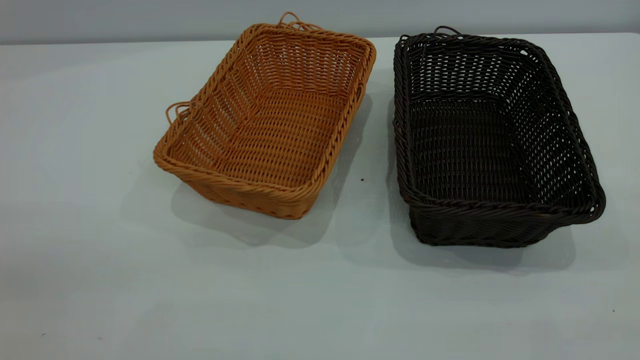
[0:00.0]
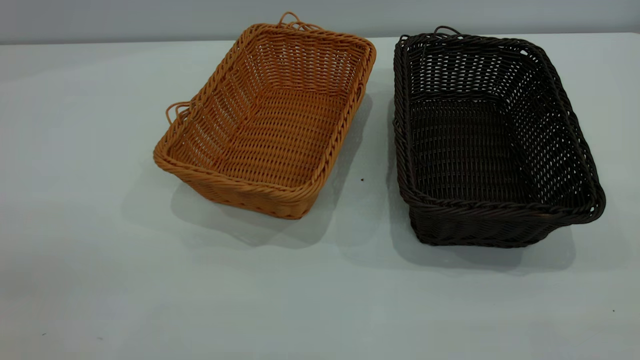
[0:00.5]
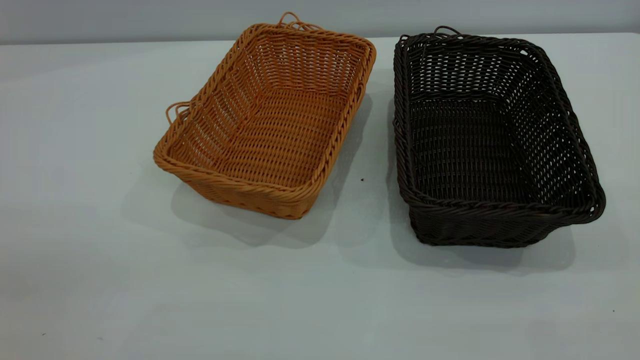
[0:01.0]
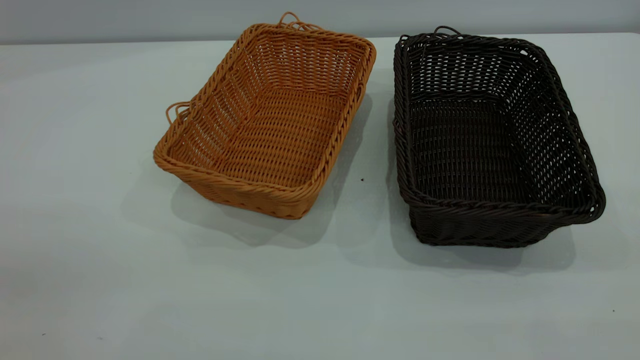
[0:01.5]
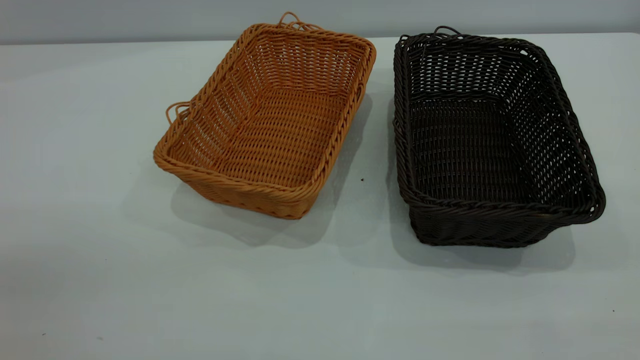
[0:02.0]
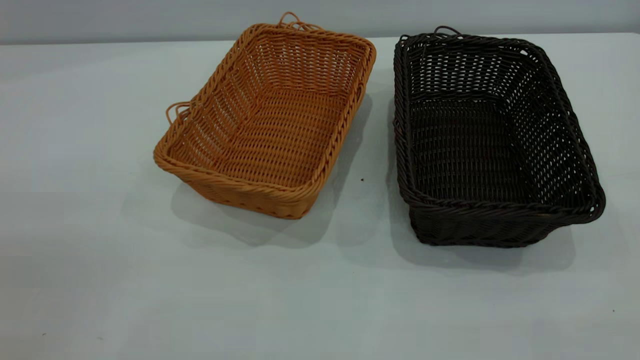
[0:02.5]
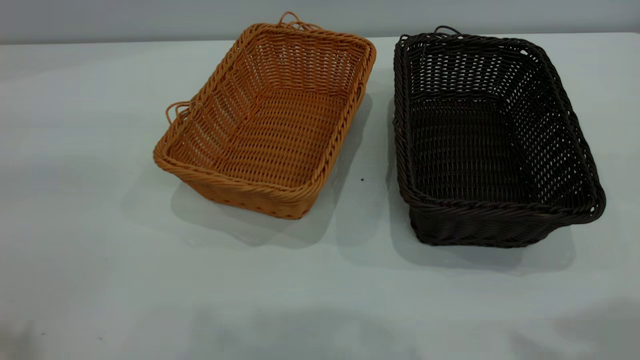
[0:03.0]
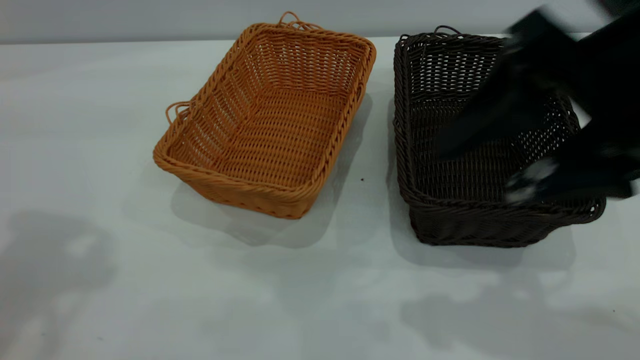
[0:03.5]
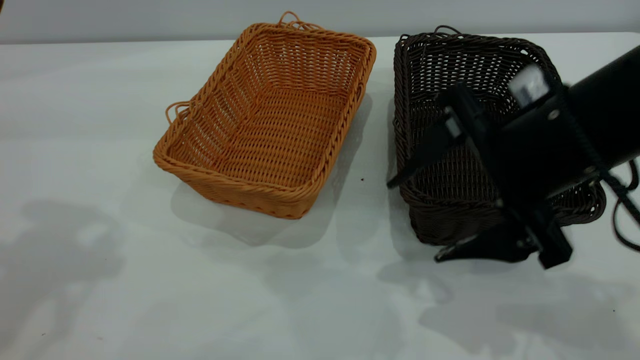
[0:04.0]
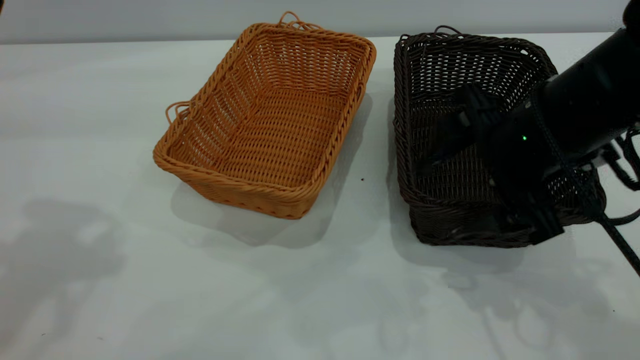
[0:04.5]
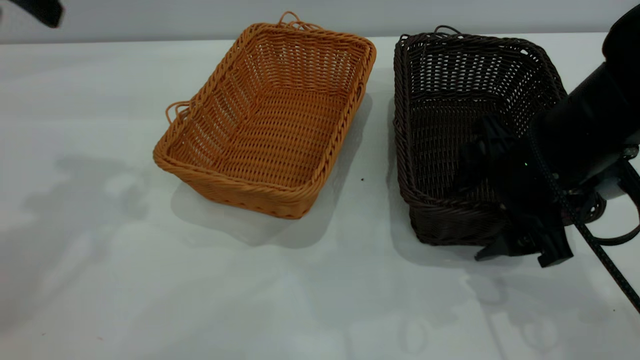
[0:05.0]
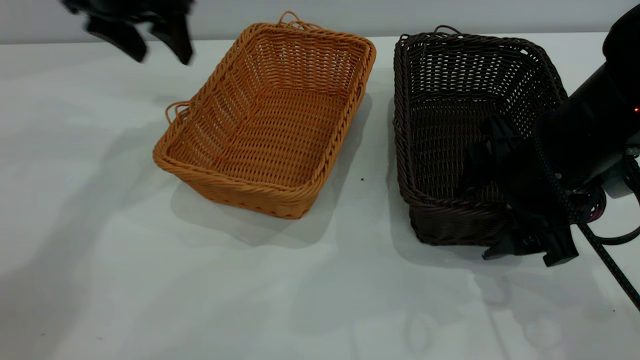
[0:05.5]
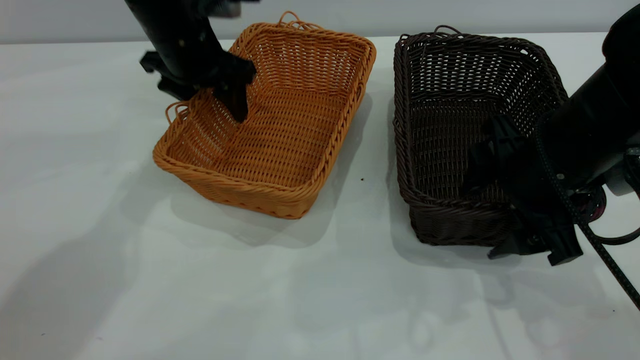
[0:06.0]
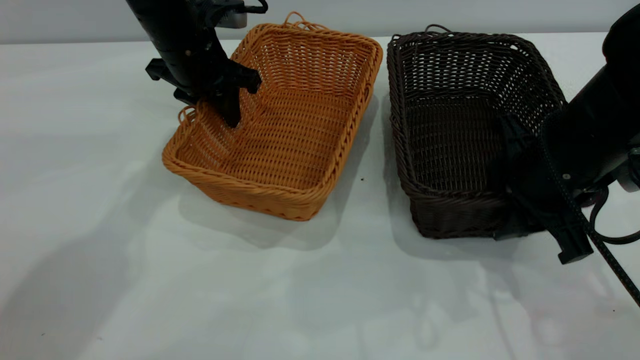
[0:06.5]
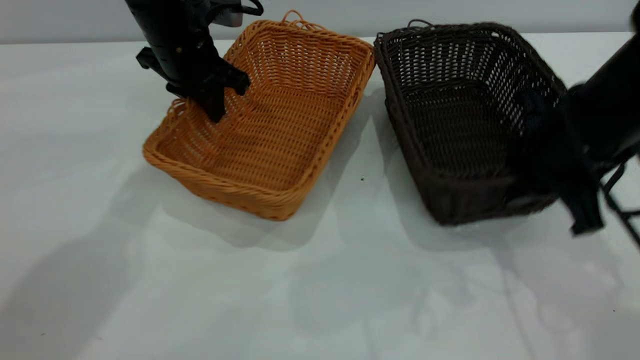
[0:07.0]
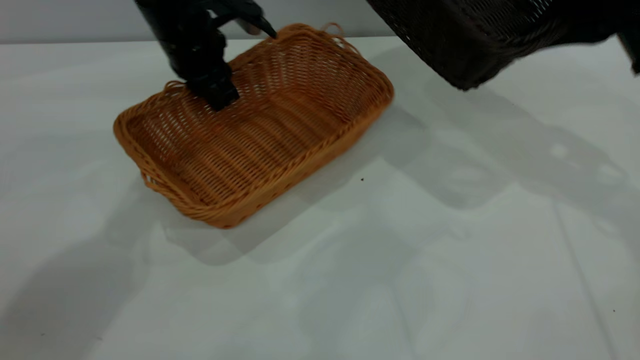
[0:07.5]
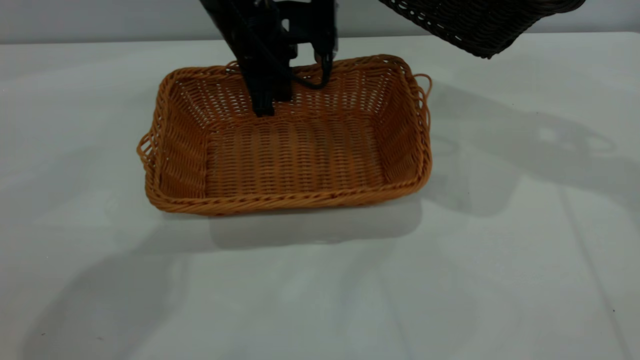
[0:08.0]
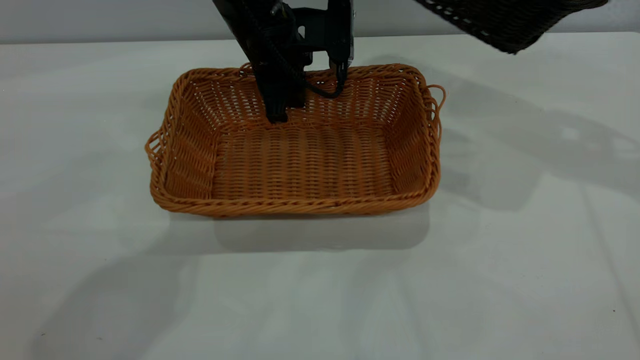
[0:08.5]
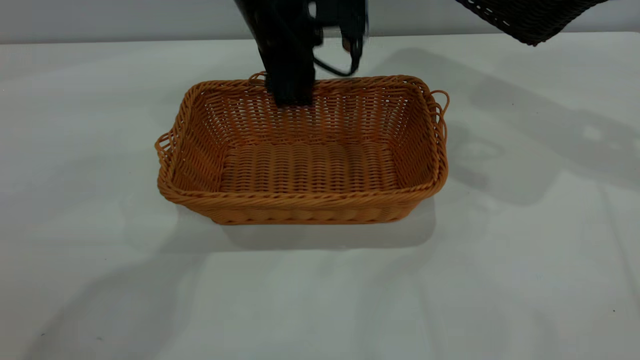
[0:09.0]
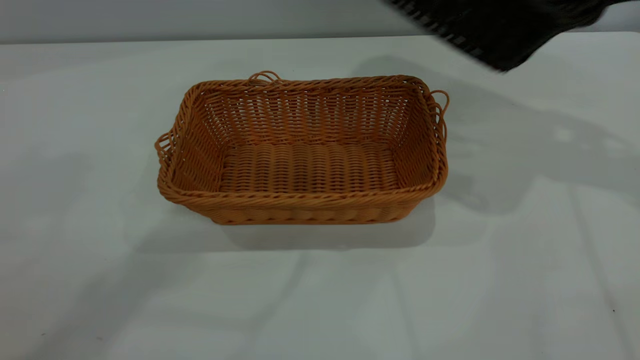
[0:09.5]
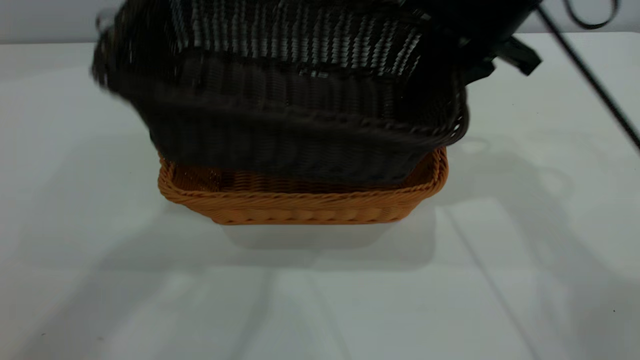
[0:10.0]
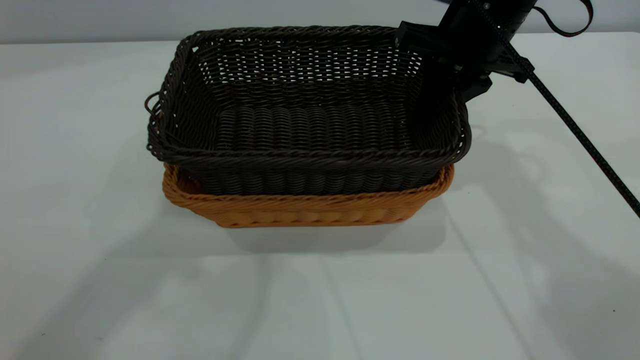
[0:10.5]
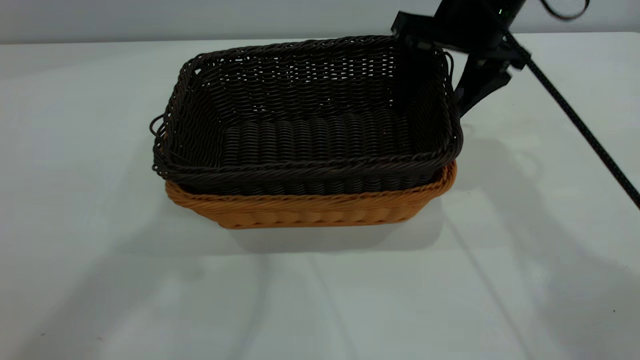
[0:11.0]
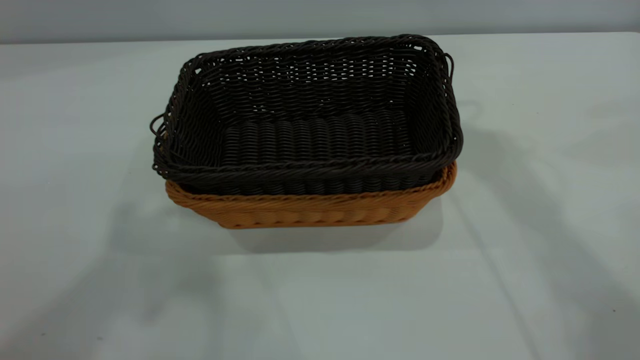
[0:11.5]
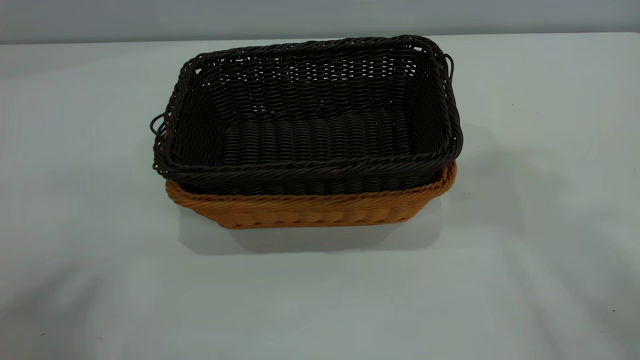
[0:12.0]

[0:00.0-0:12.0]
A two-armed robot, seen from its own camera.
Task of the whole recording: the left gripper grasp the brown basket and place it in the center of the table, the right gripper grasp the black basket and place it inside the brown one.
Step, 0:00.0 to 0:07.0: Pick up the light basket with the right gripper.
Step, 0:07.5 to 0:09.0: Place the light-colored basket in the center.
Step, 0:09.5 to 0:11.0: Place the dark basket on top of the light basket.
0:00.0 to 0:02.0: Both grippers stay about where they are.
0:02.0 to 0:04.0: The right gripper heads forward, downward and to the left, covering approximately 35 cm.
0:04.0 to 0:06.0: The right gripper changes place by approximately 5 cm. The left gripper moves downward, forward and to the right, some 30 cm.
0:06.0 to 0:08.0: The right gripper travels upward, forward and to the right by approximately 20 cm, and closes its fingers; the left gripper shifts about 10 cm to the right, and closes up.
0:08.0 to 0:10.0: The right gripper travels to the left and downward by about 15 cm, while the left gripper heads upward and backward, covering approximately 40 cm, and opens up.
0:10.0 to 0:12.0: The left gripper travels backward, upward and to the left by approximately 25 cm; the right gripper travels upward by about 35 cm, and opens its fingers.
